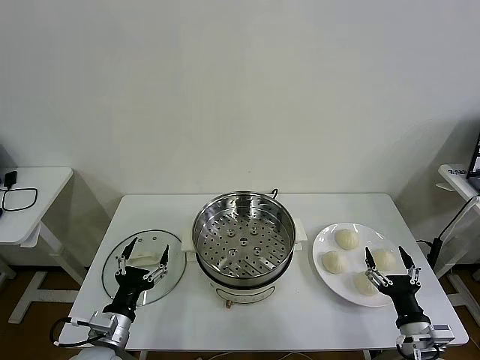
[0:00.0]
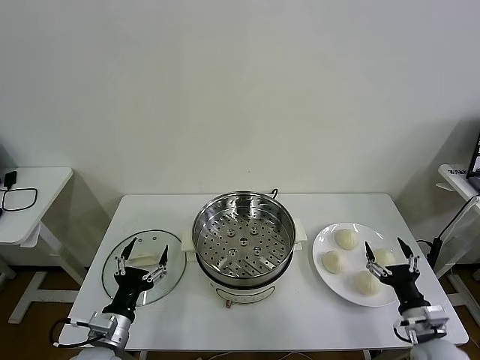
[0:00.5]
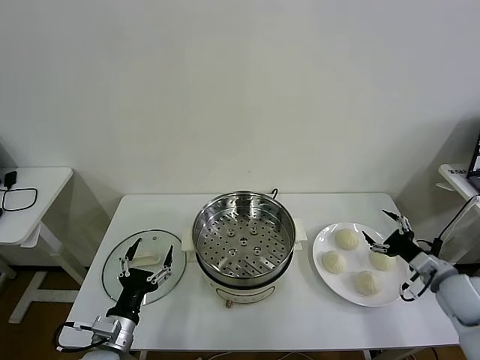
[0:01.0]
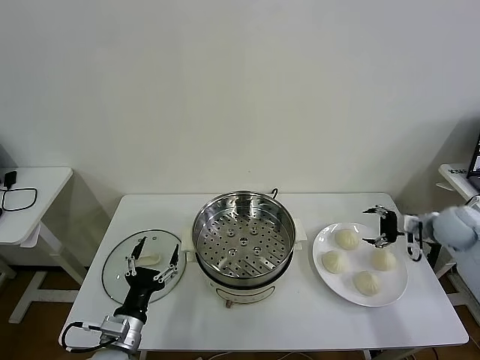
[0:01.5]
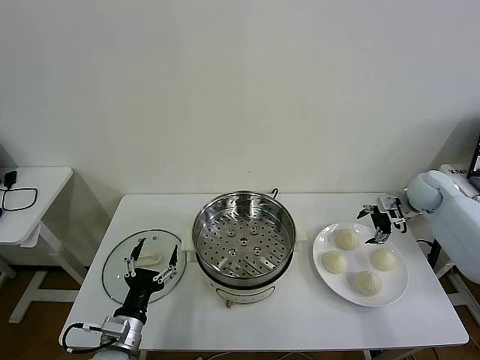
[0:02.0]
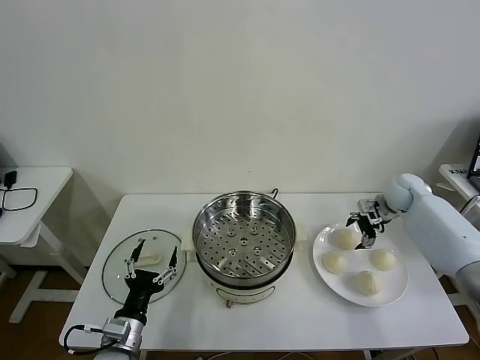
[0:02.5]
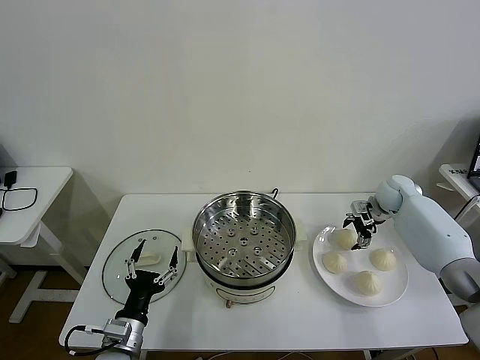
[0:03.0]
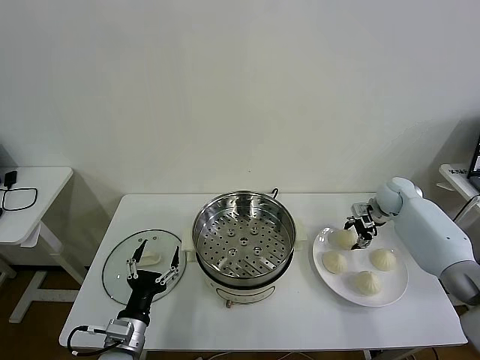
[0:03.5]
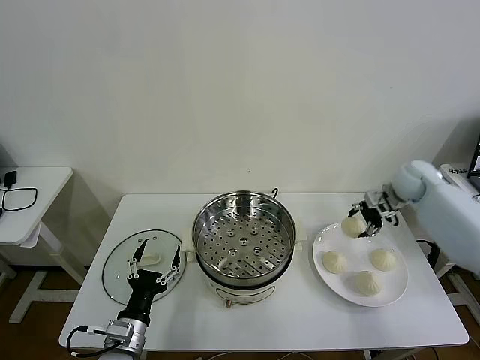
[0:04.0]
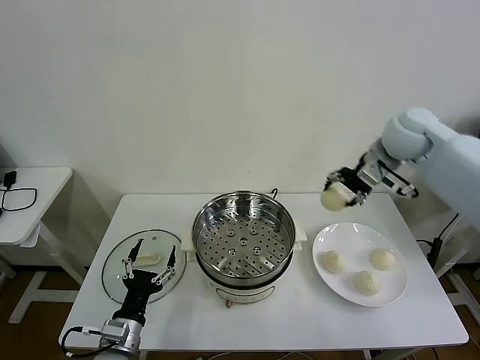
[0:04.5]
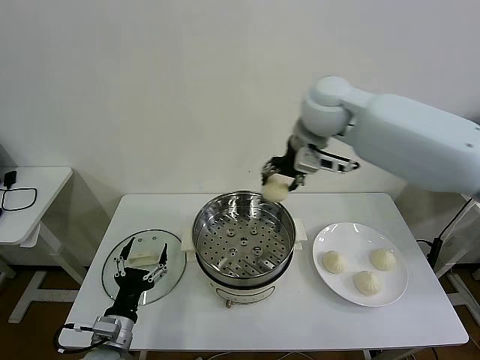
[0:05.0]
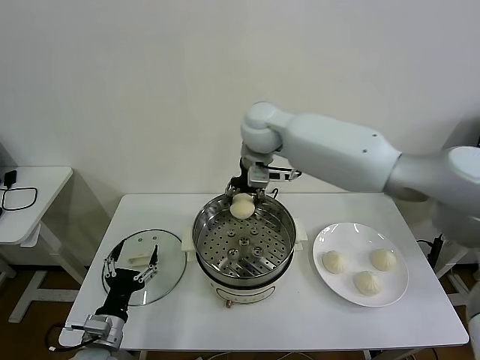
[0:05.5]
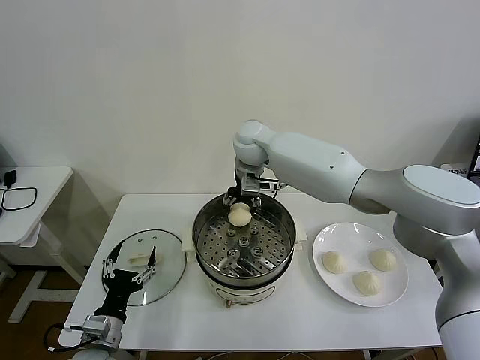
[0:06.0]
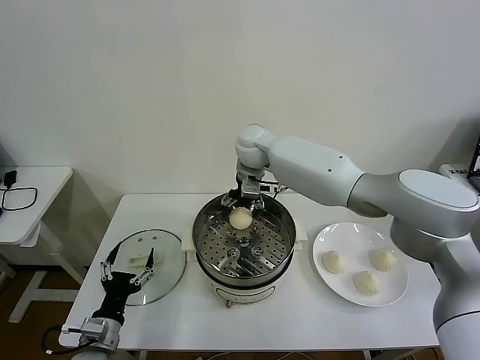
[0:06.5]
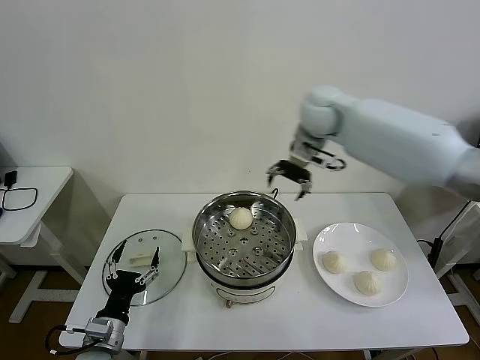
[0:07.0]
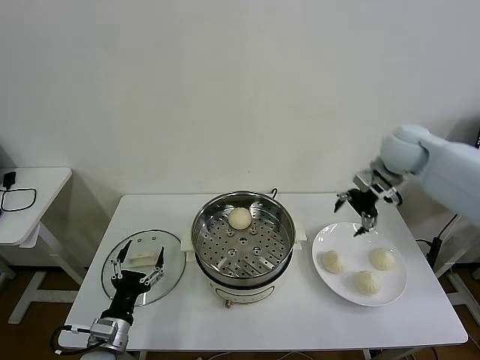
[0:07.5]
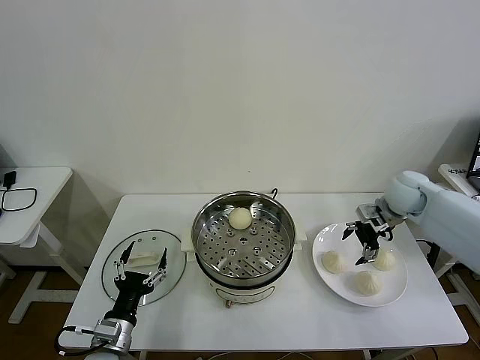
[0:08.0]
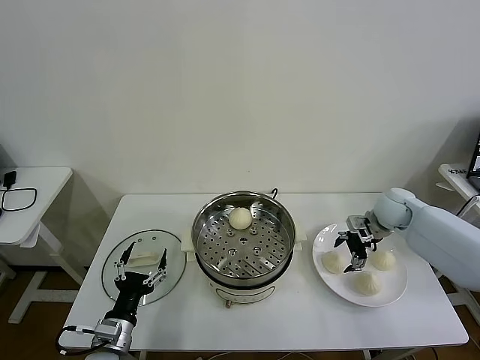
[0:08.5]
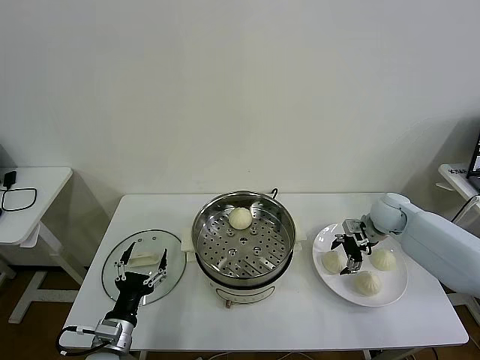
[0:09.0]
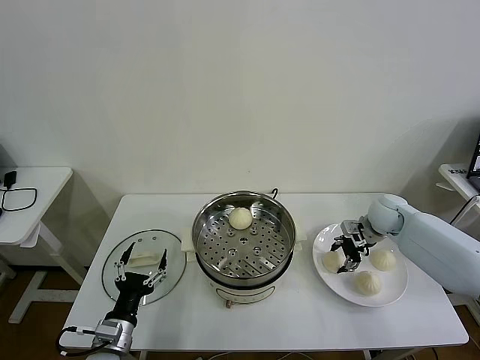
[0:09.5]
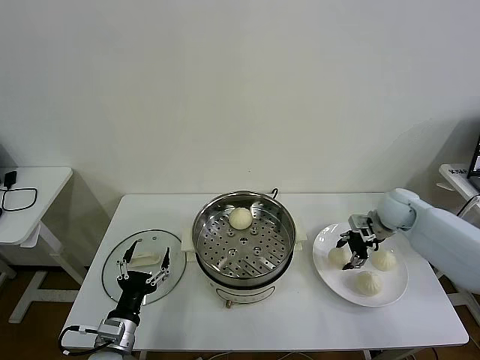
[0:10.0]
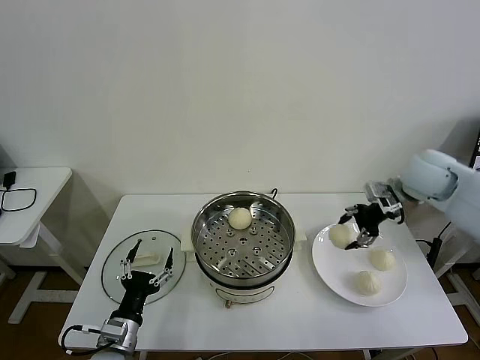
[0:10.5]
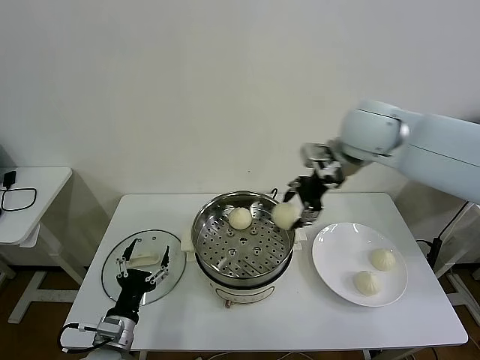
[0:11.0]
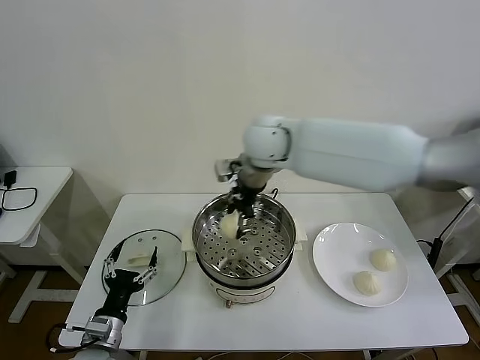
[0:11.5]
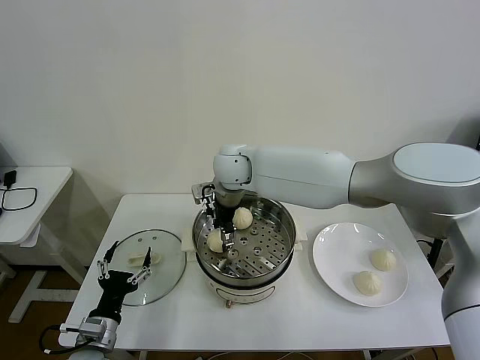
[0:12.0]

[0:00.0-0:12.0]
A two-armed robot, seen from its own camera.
Task of the whole recording: take steamed baozi put them in steamer then cover it.
Step, 0:00.0 to 0:03.0: Grasp the baozi in the plate with right gripper.
Step, 0:03.5 to 0:06.5: Place the baozi on the steamer with right gripper.
Step, 0:07.0 to 0:09.0: Grasp the baozi in the plate with right gripper.
0:02.0 to 0:04.0: The right gripper heads upward, covering approximately 5 cm, and closes.
0:04.0 to 0:06.0: The right gripper goes some 40 cm to the left, while the left gripper is displaced to the left by approximately 5 cm.
0:06.0 to 0:08.0: The right gripper heads to the right, covering roughly 35 cm, and opens its fingers.
0:08.0 to 0:10.0: The right gripper closes up.
0:10.0 to 0:12.0: The right gripper travels to the left by roughly 40 cm, and opens.

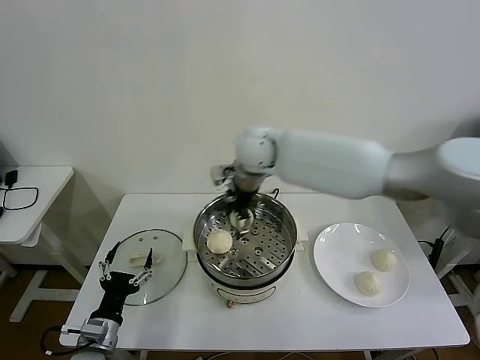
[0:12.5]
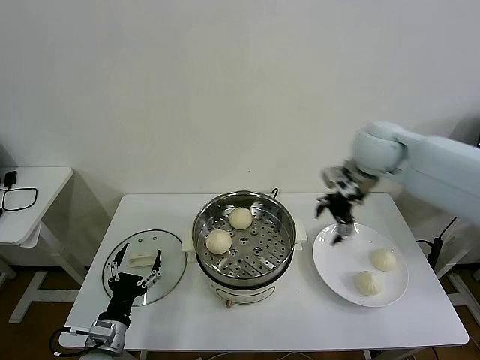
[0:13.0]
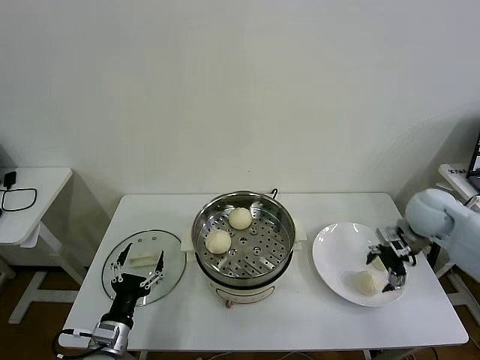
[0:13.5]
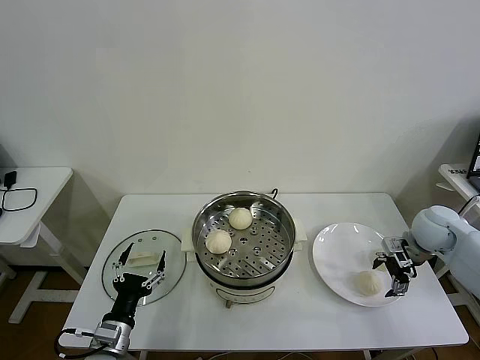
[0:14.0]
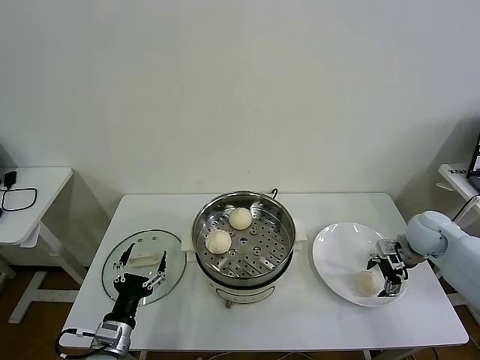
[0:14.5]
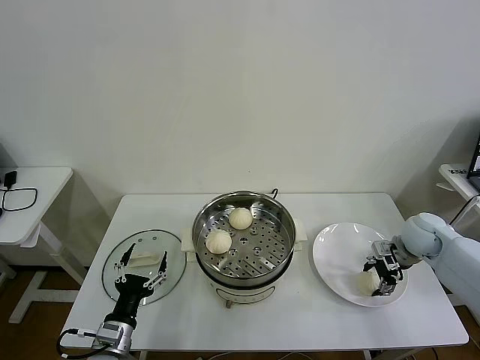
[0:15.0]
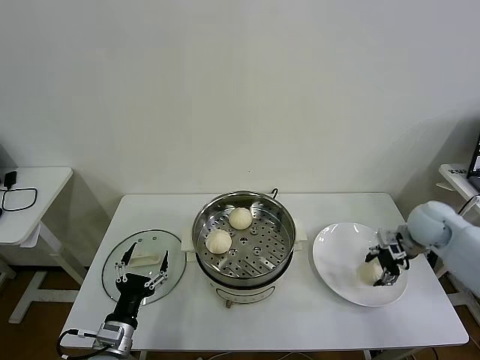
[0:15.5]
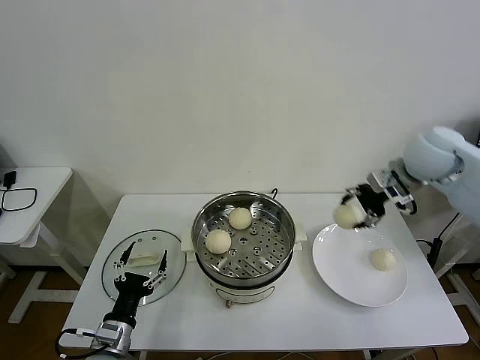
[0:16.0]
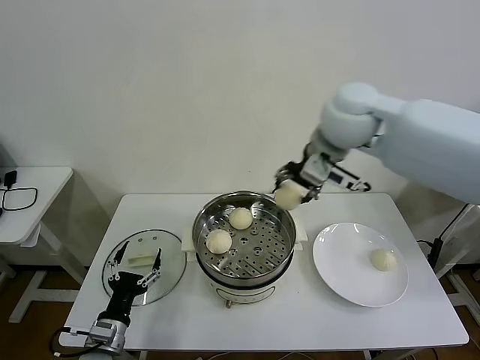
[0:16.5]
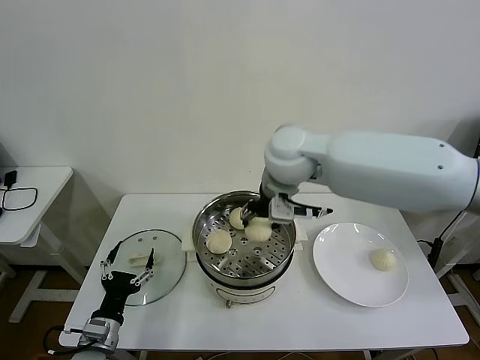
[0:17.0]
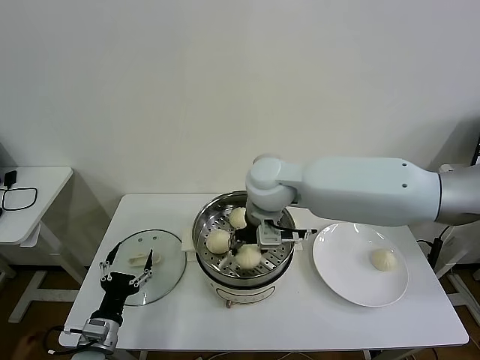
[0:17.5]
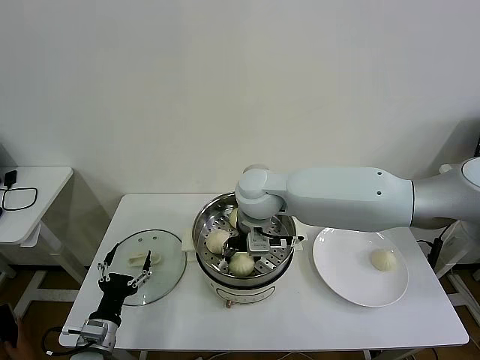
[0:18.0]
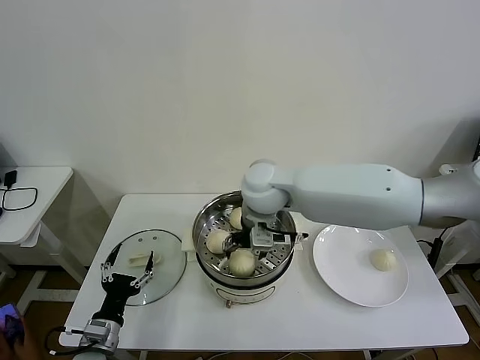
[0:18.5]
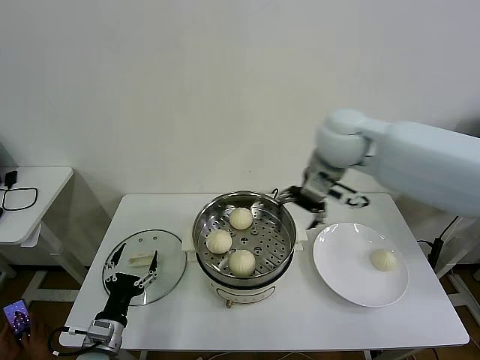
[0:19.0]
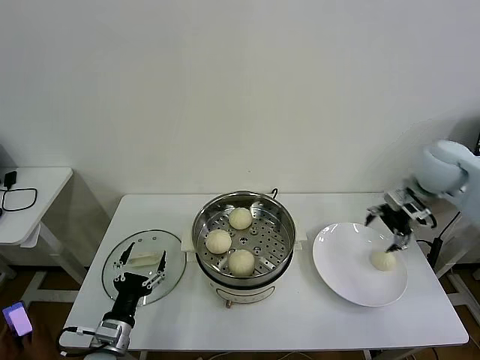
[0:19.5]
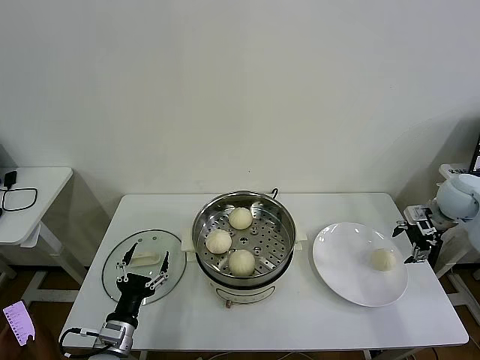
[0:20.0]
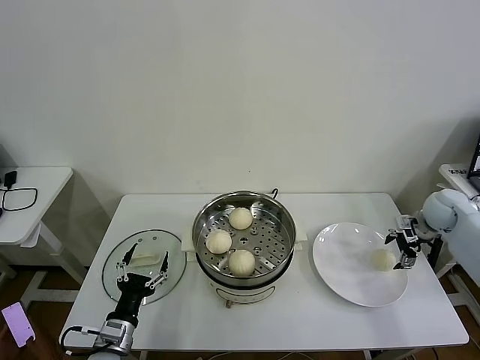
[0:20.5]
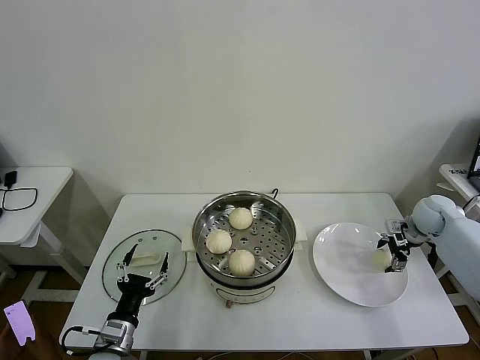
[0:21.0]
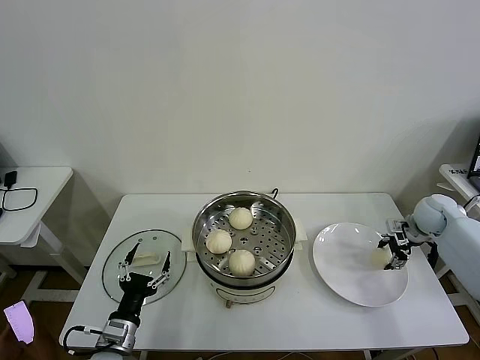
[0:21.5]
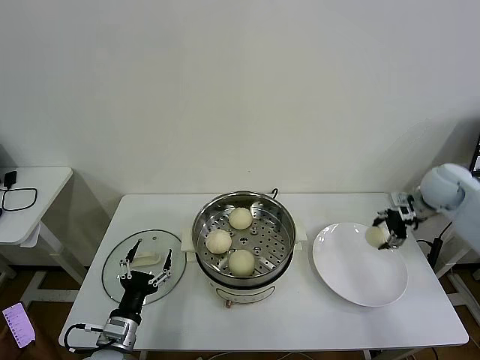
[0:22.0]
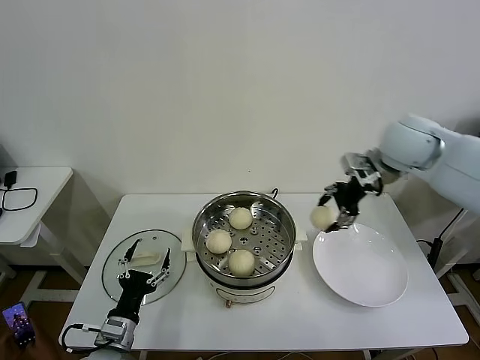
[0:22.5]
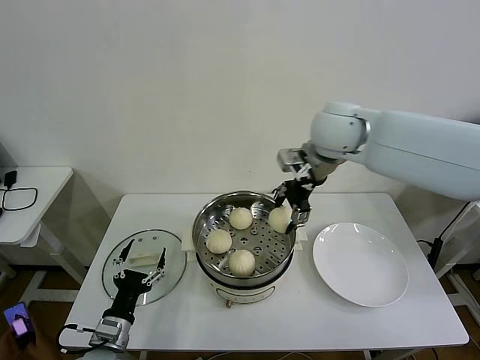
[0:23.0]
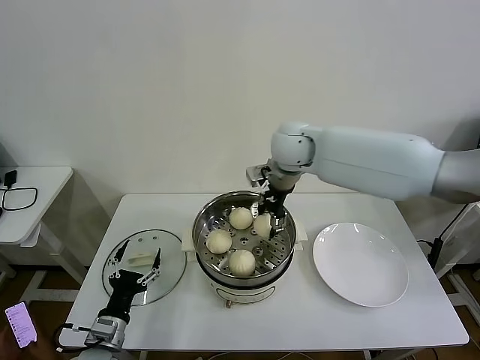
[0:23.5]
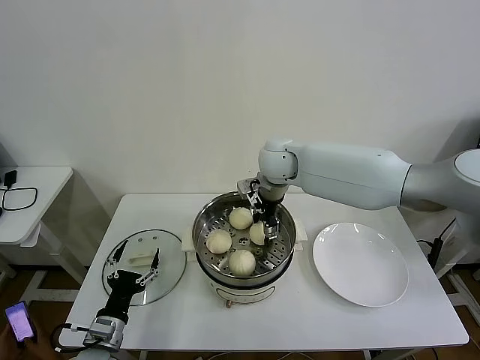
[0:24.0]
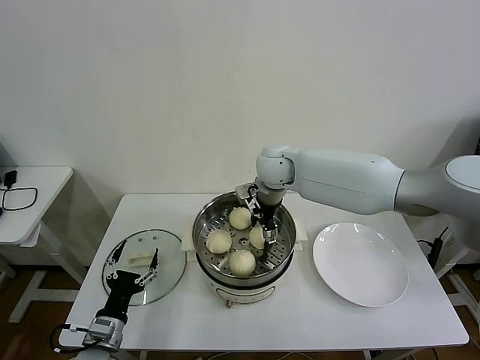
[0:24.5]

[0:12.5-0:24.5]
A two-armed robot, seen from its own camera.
Task of the whole recording: take steamed baozi put them in steamer then cover it.
Step, 0:13.0 to 0:15.0: Grasp the baozi in the plate with right gripper.
Step, 0:15.5 to 0:18.5: Place the baozi on the steamer with right gripper.
Step, 0:19.0 to 0:21.5: Grasp the baozi in the plate with right gripper.
0:12.5 to 0:14.5: The right gripper is displaced to the right and downward by roughly 40 cm.
0:14.5 to 0:16.5: The right gripper heads to the left and upward, covering roughly 40 cm, and closes up.
0:16.5 to 0:18.5: The right gripper moves downward and to the left, some 15 cm, and opens.
0:18.5 to 0:20.5: The right gripper heads to the right, covering about 50 cm.
0:20.5 to 0:22.5: The right gripper heads upward and to the left, covering roughly 30 cm, and closes.
0:22.5 to 0:24.5: The right gripper is displaced to the left and downward by about 25 cm, and opens up.

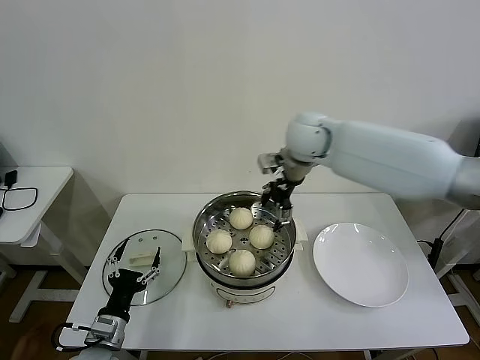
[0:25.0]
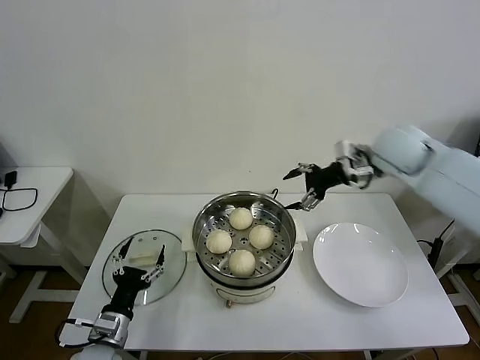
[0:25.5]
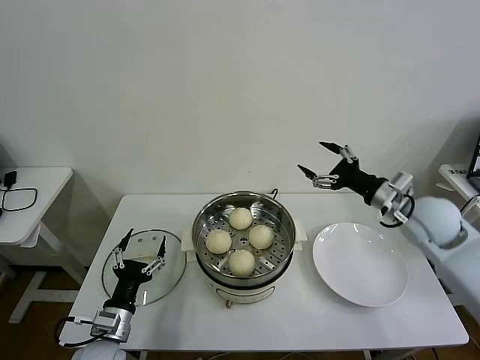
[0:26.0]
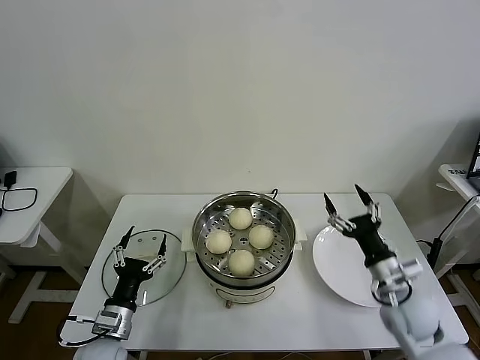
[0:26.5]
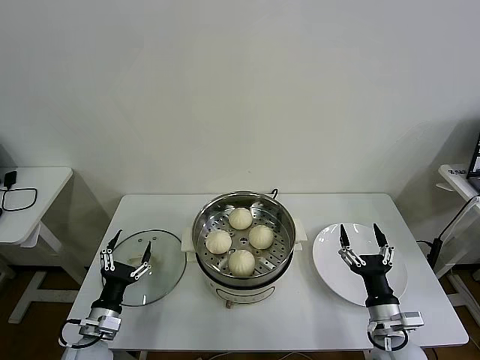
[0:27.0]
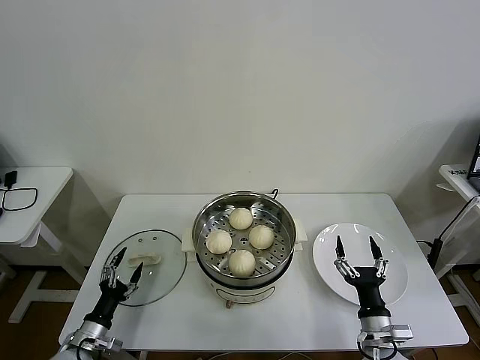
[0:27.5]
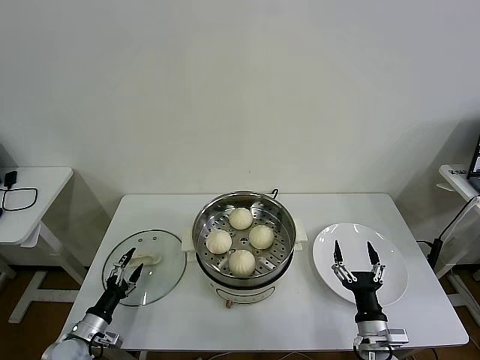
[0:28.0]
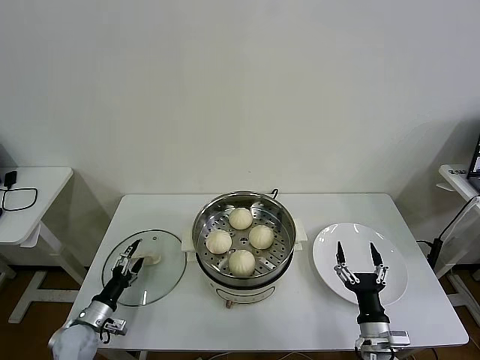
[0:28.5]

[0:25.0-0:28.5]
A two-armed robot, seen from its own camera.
Task of the whole recording: take steamed baozi put them in steamer then cover it.
0:25.0 to 0:27.0: The right gripper travels backward, downward and to the right by some 50 cm.
0:27.0 to 0:28.5: The left gripper is displaced to the left and downward by about 10 cm. The right gripper shifts by roughly 5 cm.
